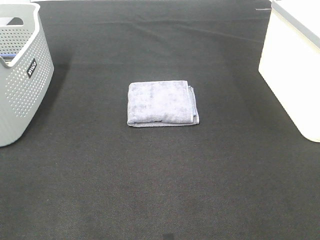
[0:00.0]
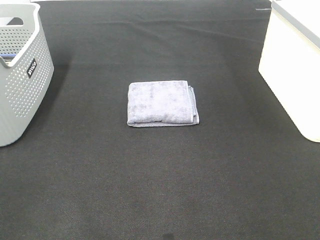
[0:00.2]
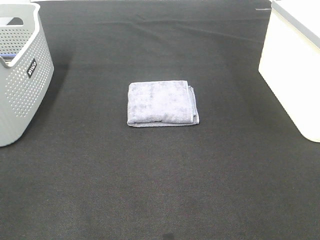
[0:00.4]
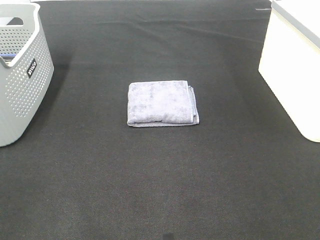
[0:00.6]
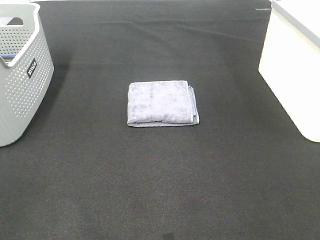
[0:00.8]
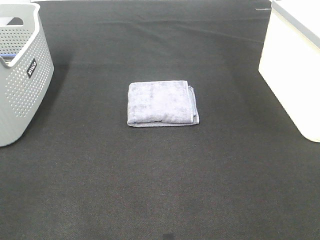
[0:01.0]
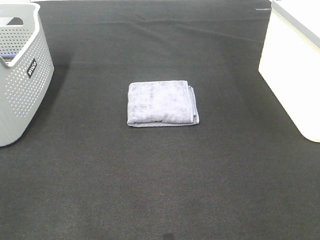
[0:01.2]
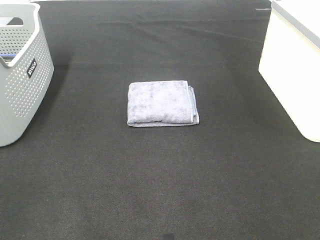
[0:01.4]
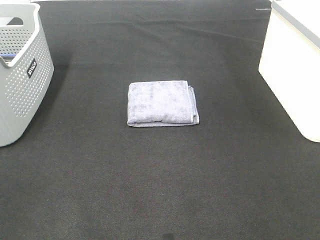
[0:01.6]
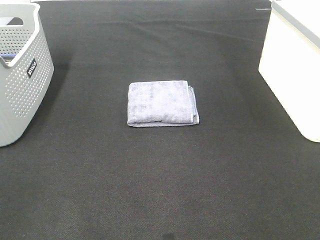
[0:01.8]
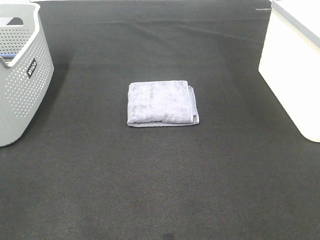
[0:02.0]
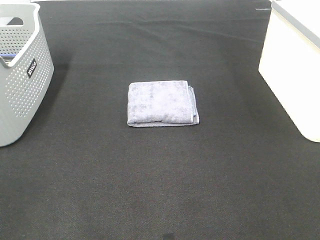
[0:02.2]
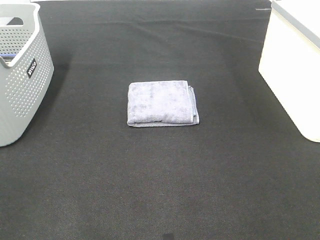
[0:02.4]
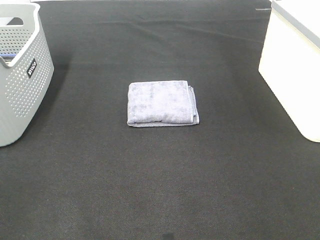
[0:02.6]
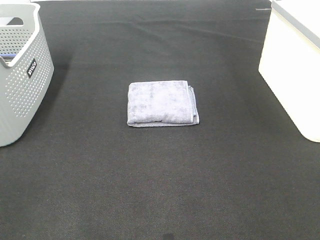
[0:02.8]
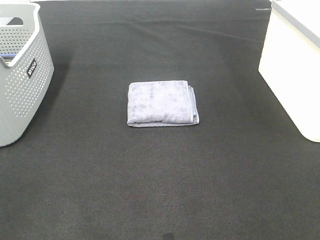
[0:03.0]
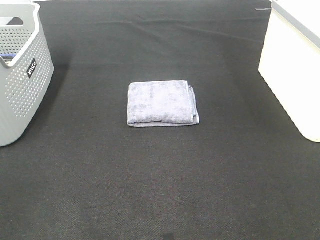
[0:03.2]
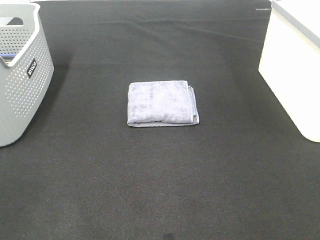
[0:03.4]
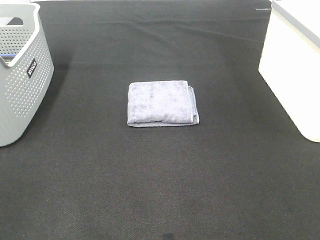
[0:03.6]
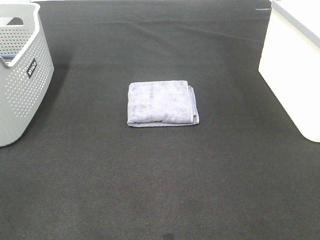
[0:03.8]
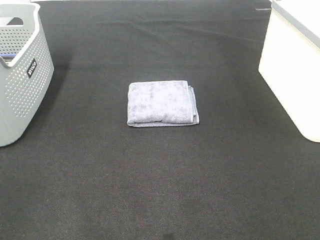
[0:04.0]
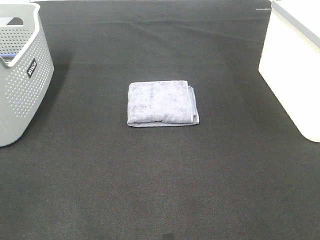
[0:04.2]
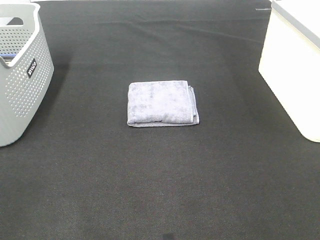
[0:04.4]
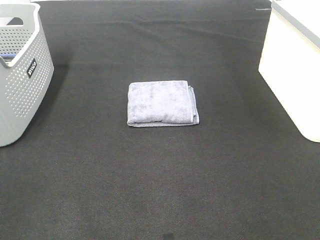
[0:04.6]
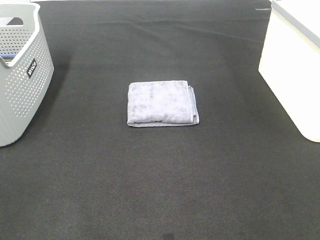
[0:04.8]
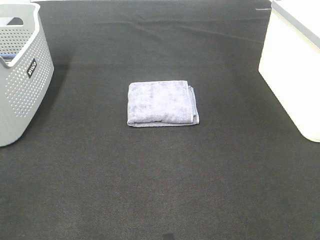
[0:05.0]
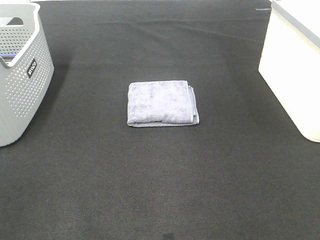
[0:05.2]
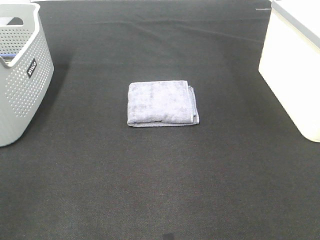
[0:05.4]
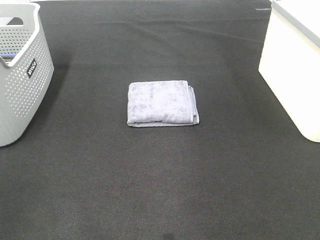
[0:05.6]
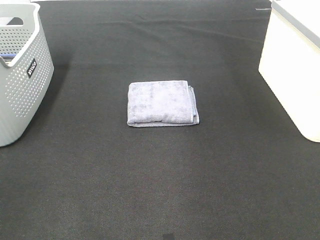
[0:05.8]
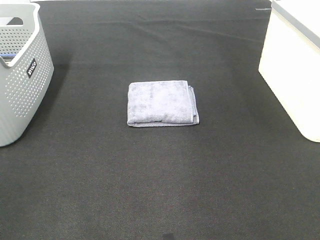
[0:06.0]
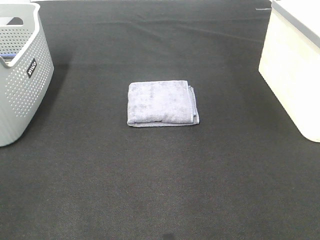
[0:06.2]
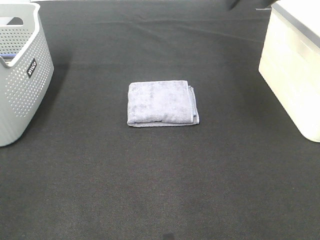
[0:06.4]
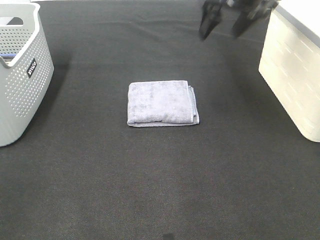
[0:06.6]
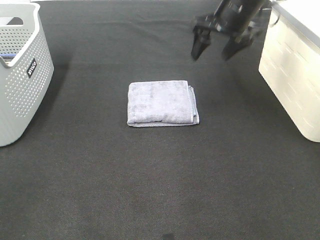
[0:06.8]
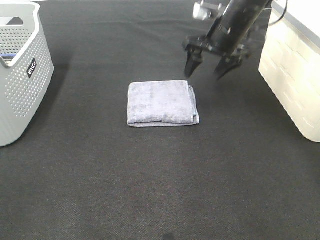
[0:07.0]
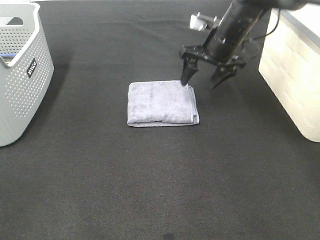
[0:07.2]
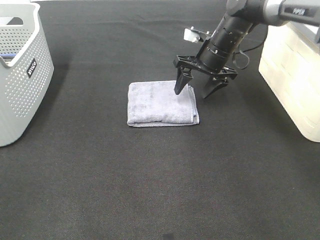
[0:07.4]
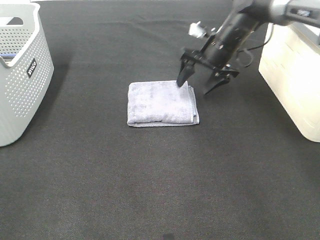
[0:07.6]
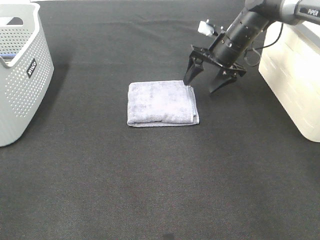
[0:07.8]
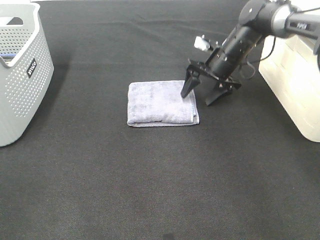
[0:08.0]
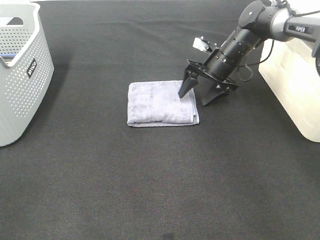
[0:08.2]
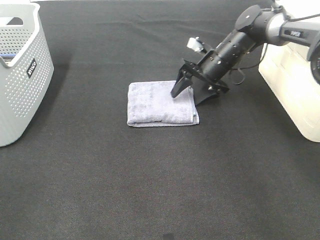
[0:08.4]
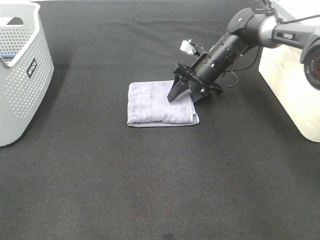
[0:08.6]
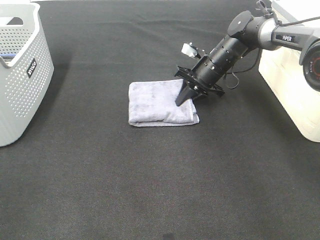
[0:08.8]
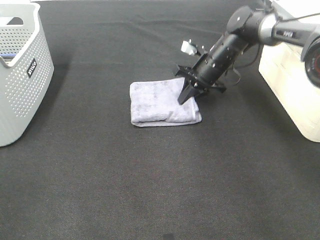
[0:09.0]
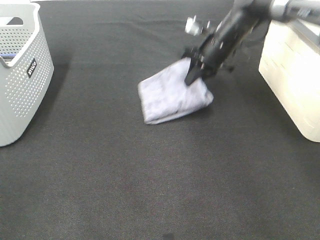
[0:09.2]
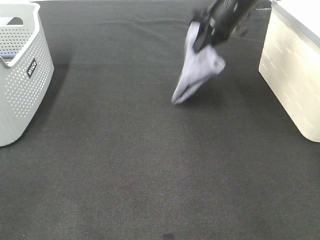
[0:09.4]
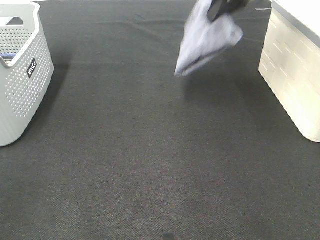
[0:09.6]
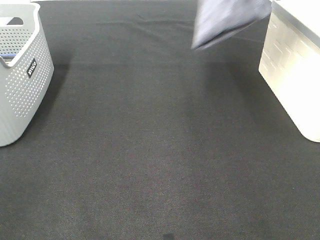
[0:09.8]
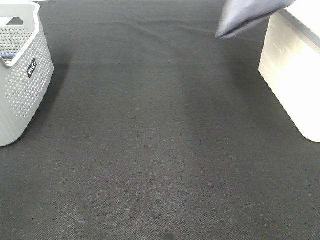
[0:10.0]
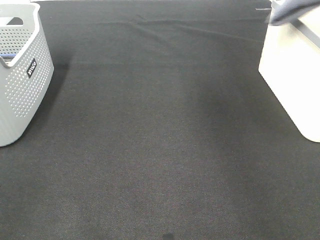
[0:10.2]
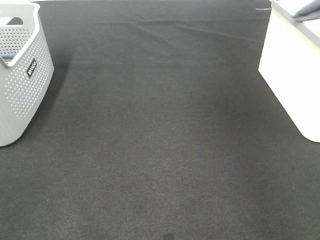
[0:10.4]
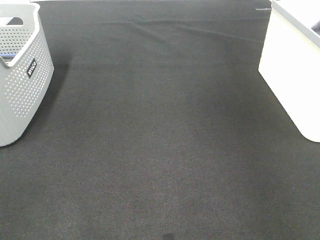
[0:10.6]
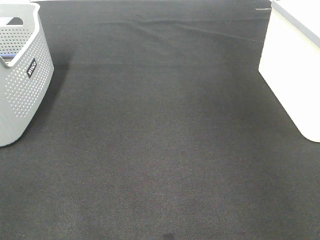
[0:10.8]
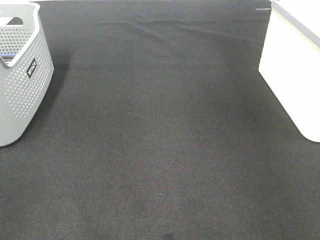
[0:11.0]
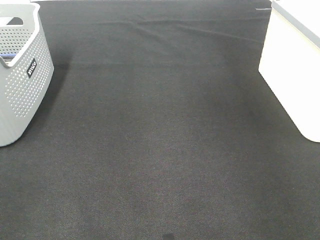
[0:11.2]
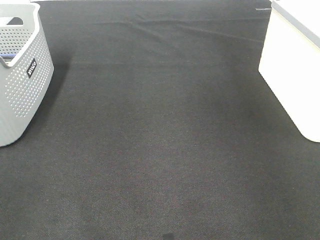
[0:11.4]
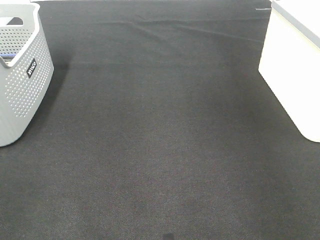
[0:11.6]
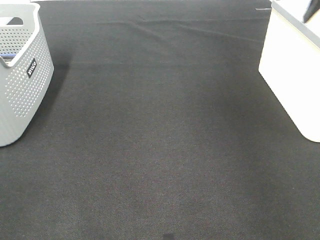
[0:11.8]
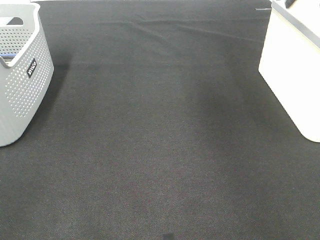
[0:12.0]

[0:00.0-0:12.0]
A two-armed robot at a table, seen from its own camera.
Step, 0:00.0 to 0:09.0: Right hand: grab the folded grey towel.
Step, 0:09.2 to 0:11.4: Right hand: place the grey towel in right basket.
0:00.0 to 0:04.4: The two grippers keep their place.
0:06.0 to 0:07.6: The right gripper travels downward, forward and to the left by about 30 cm.
0:07.6 to 0:09.0: The right gripper closes its fingers.
0:09.0 to 0:10.4: The right gripper moves upward and to the right, roughly 40 cm.
0:10.4 to 0:12.0: The right gripper shifts some 10 cm to the left and downward, and opens.

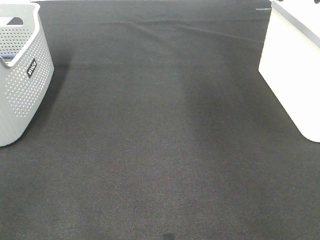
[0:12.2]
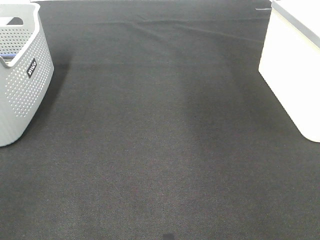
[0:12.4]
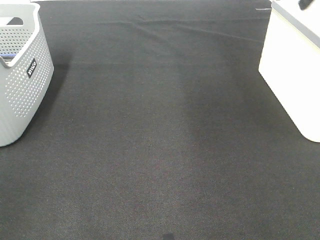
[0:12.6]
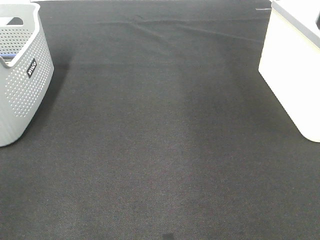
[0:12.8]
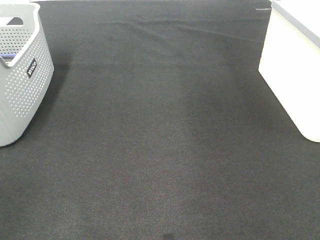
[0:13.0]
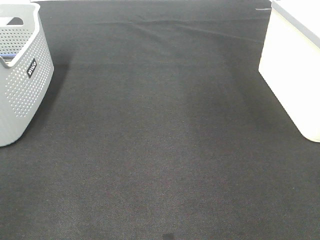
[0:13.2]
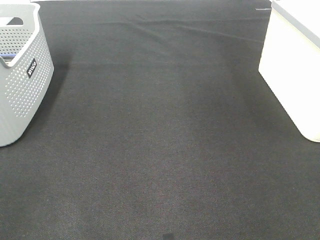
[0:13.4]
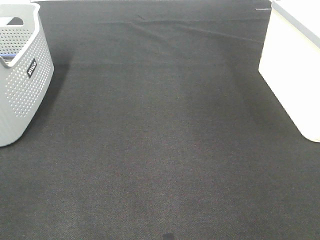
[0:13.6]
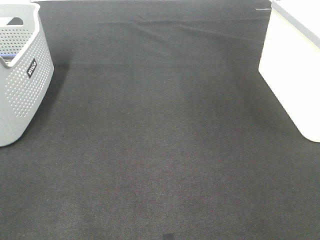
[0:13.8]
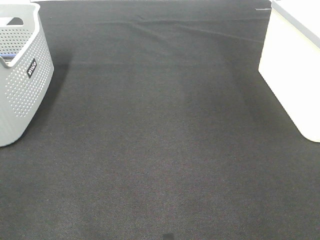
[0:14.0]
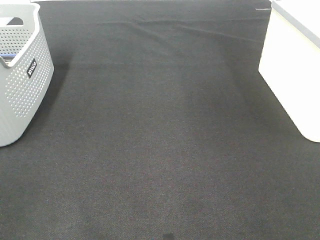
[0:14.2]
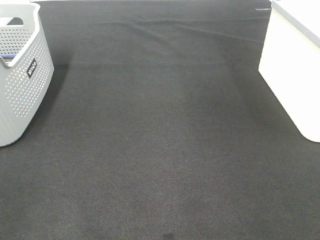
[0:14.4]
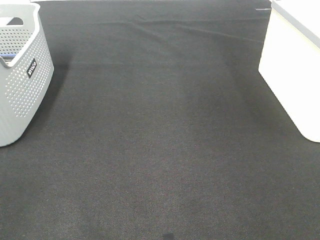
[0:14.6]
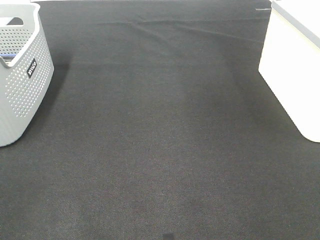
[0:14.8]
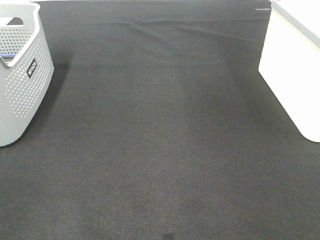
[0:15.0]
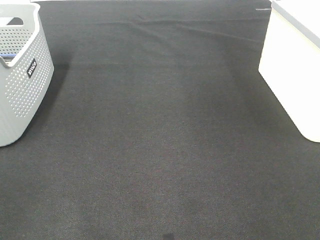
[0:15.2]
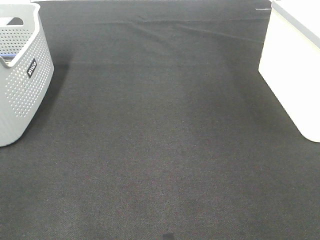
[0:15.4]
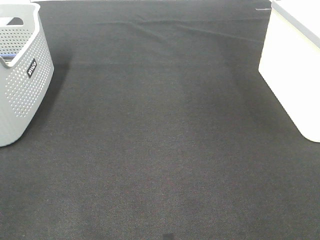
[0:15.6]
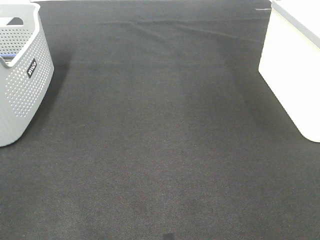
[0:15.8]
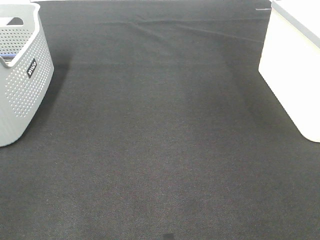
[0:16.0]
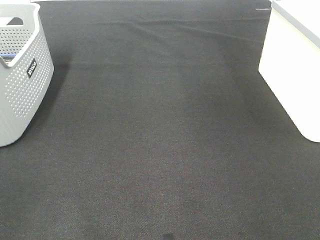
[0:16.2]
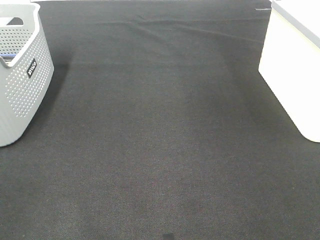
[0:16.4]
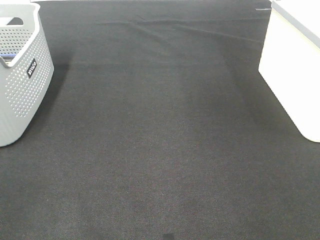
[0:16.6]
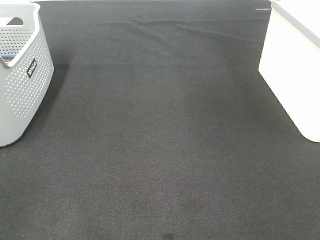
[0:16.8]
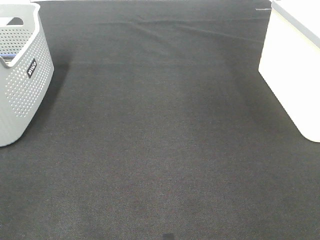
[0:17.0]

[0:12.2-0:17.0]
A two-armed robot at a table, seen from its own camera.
0:15.4 to 0:17.0: Neither gripper changes place.

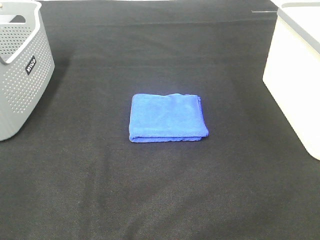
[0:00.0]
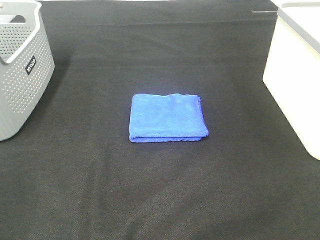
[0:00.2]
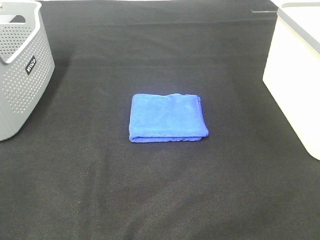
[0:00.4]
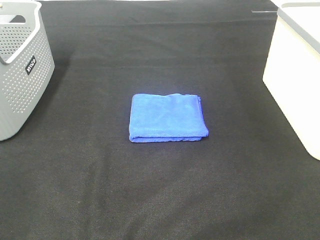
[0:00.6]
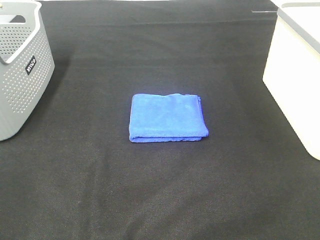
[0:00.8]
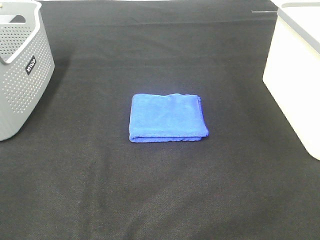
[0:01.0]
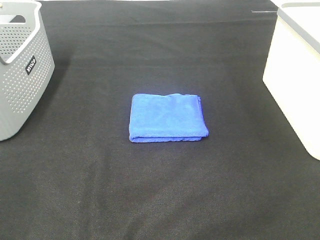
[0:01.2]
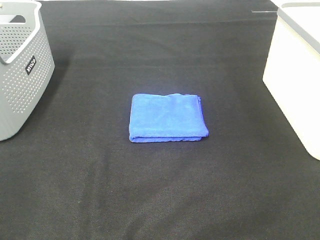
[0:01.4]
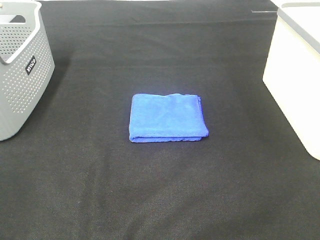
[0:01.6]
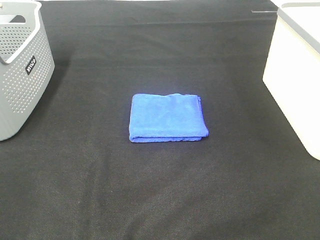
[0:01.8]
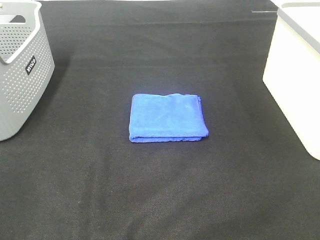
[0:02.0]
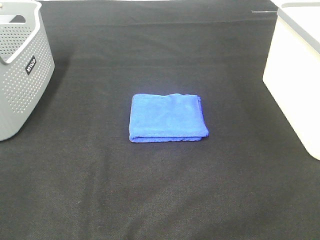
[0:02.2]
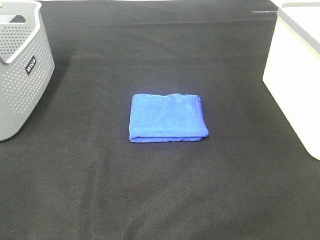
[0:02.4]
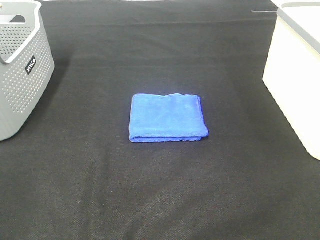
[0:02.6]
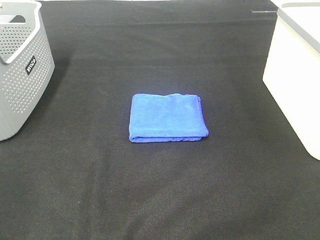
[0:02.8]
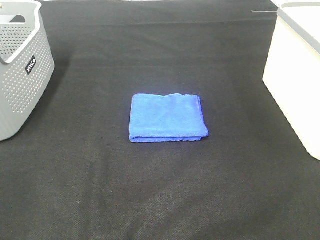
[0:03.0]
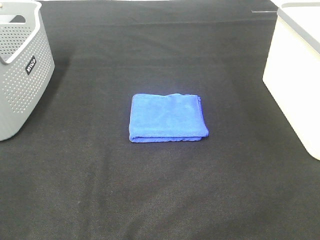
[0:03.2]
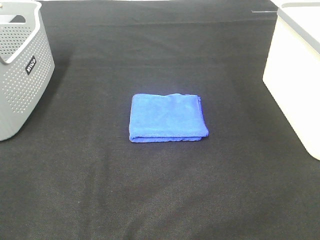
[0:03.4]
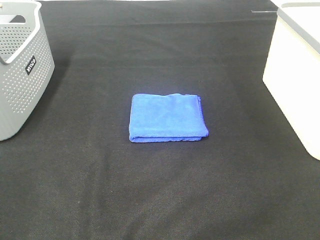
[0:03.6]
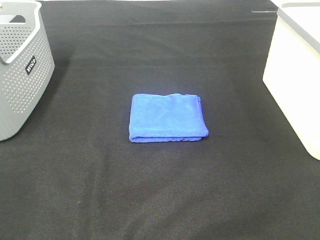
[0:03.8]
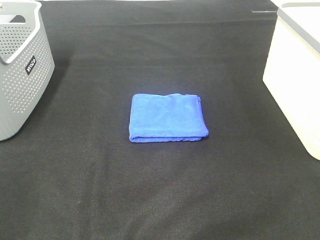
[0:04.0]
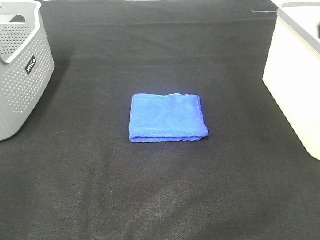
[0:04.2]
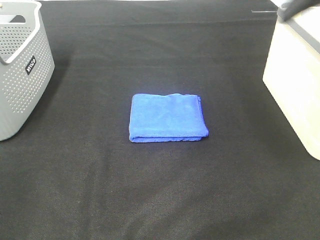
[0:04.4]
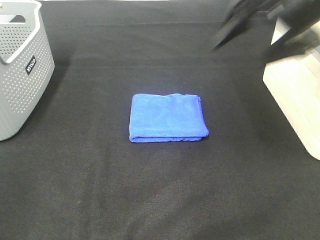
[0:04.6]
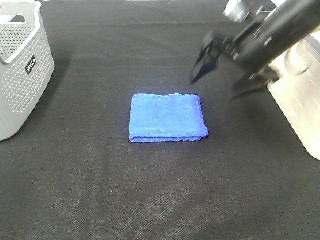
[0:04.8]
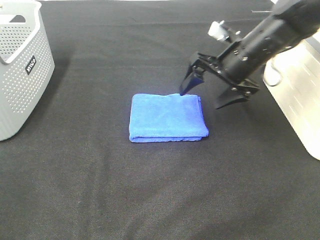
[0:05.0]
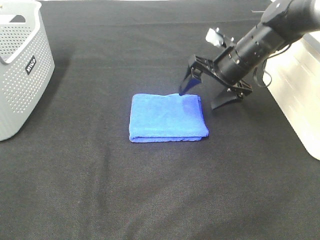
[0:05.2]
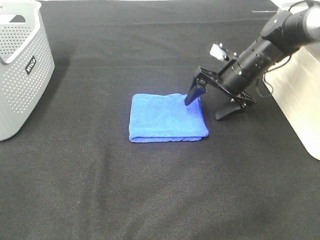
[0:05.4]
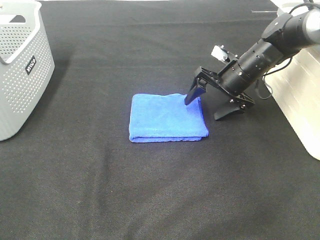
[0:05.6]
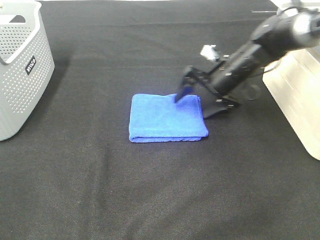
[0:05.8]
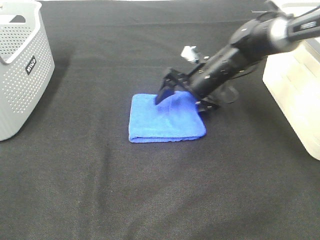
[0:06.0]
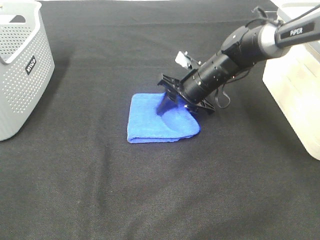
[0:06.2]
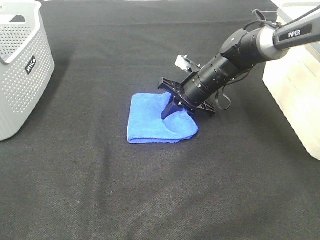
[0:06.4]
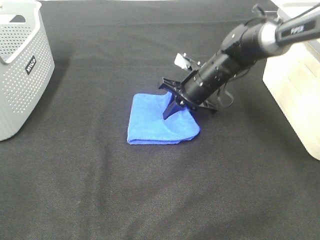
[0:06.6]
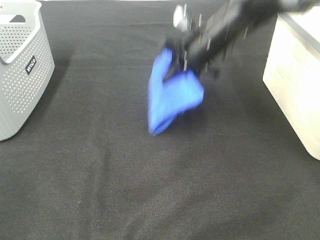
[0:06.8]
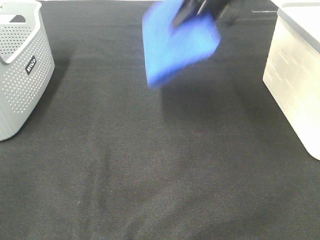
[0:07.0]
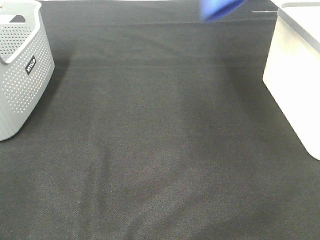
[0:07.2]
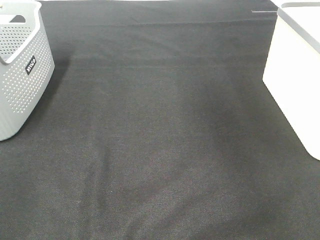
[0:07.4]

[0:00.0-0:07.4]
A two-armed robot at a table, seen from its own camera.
Step, 0:00.0 to 0:06.4: Right hand: grab the folded blue towel.
0:00.0 to 0:03.0: Neither gripper changes place.
0:03.0 to 0:04.4: The right gripper goes about 25 cm forward.
0:04.4 to 0:06.0: The right gripper is displaced downward, forward and to the left by some 35 cm.
0:06.0 to 0:07.4: The right gripper travels upward and to the right by approximately 40 cm, and closes its fingers.
